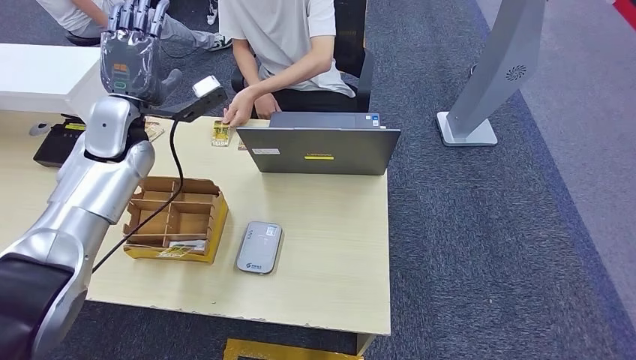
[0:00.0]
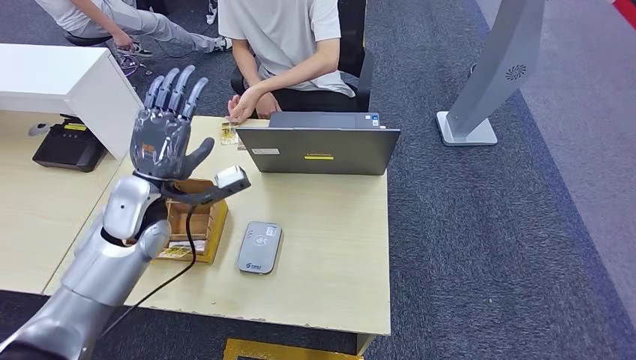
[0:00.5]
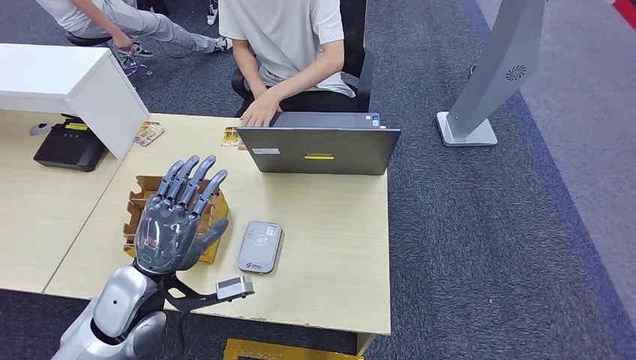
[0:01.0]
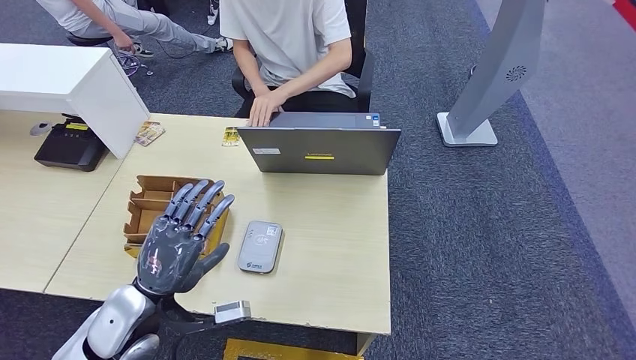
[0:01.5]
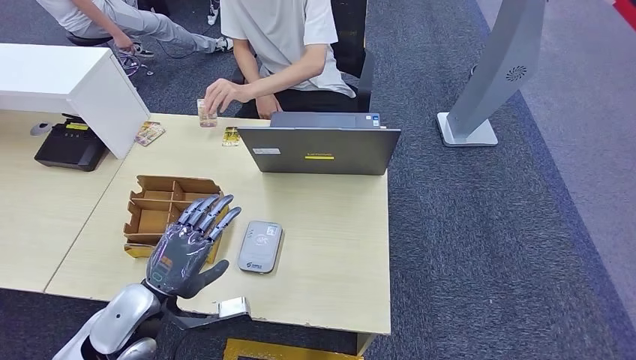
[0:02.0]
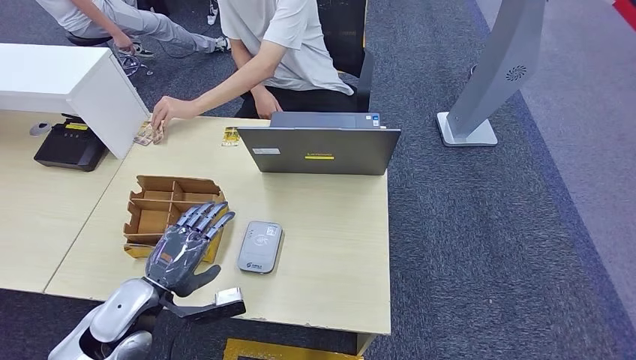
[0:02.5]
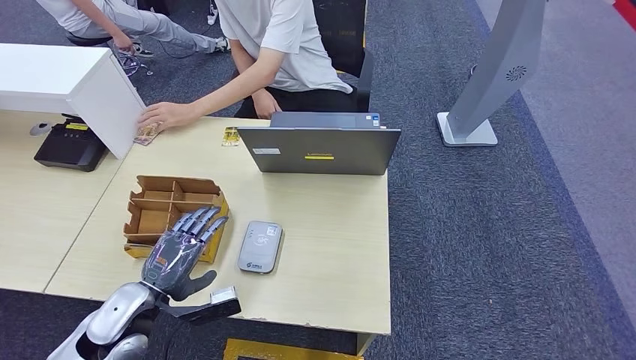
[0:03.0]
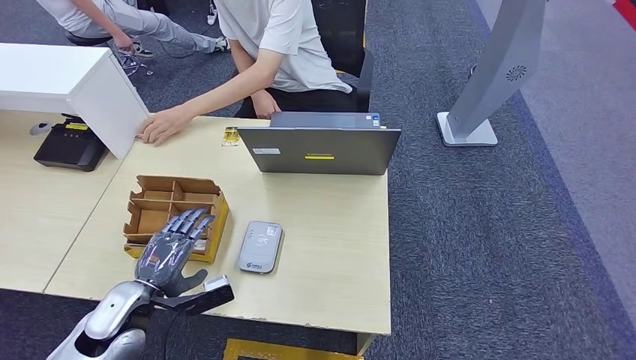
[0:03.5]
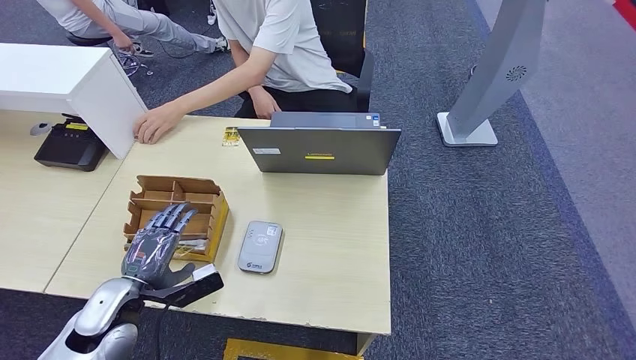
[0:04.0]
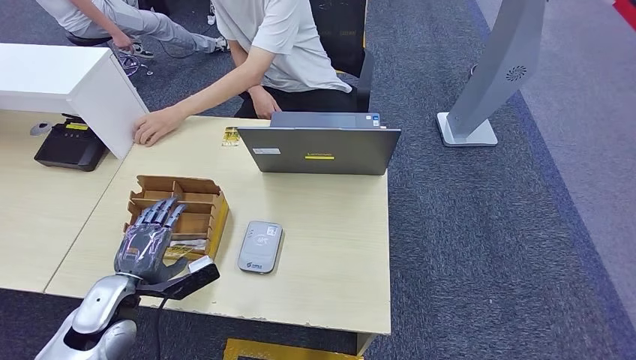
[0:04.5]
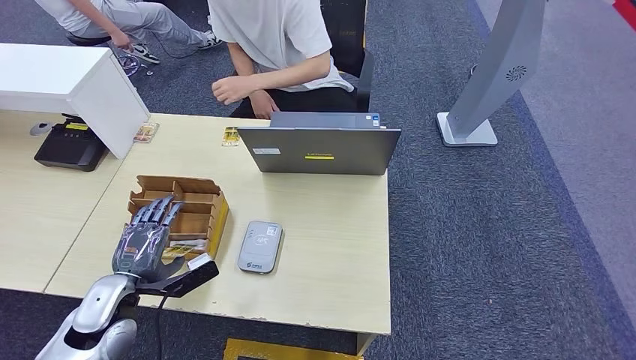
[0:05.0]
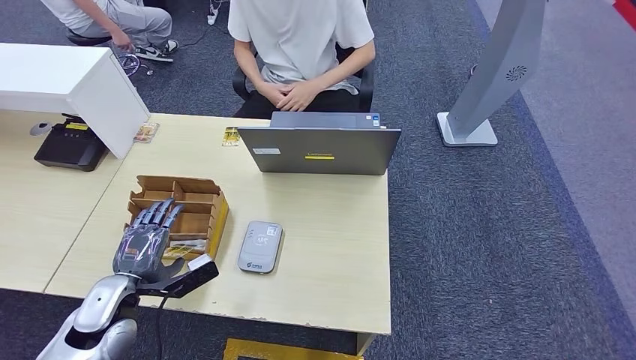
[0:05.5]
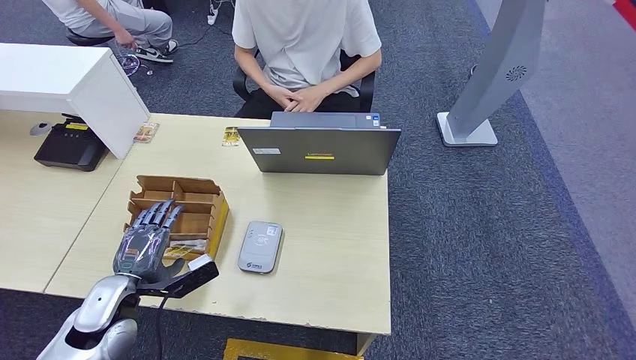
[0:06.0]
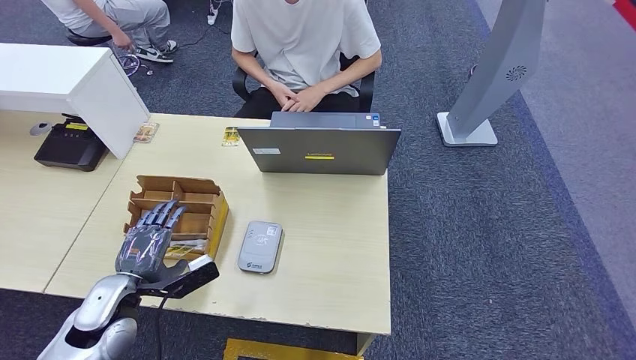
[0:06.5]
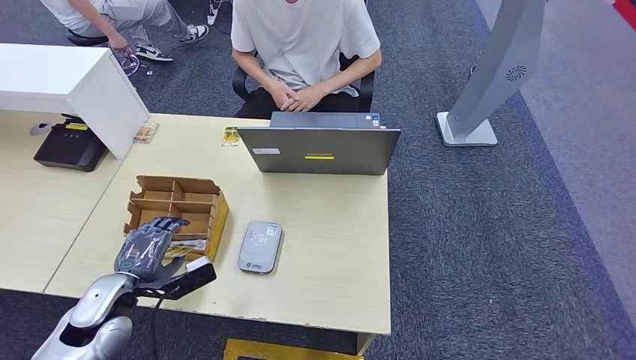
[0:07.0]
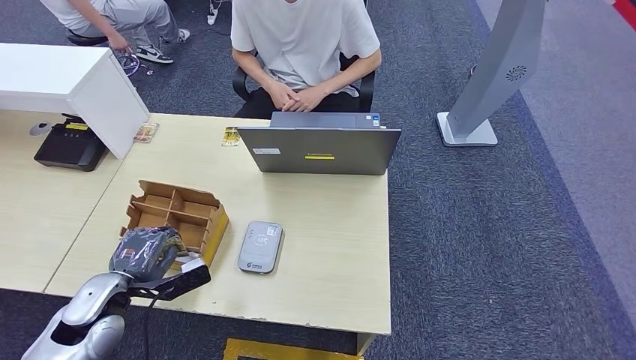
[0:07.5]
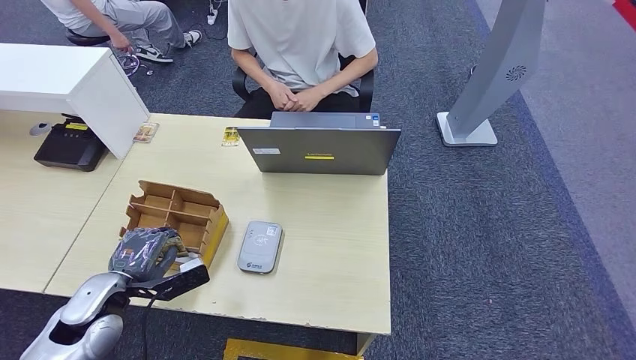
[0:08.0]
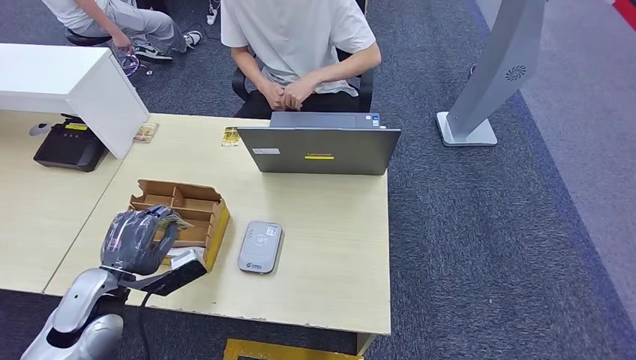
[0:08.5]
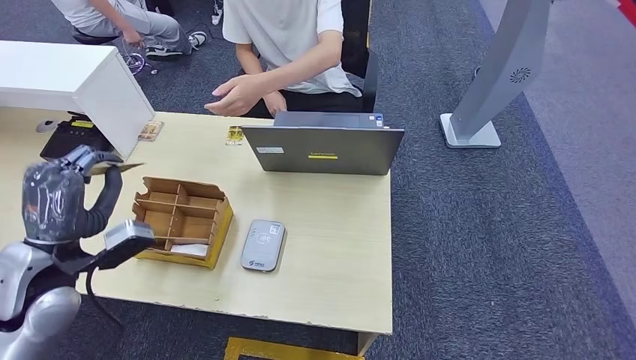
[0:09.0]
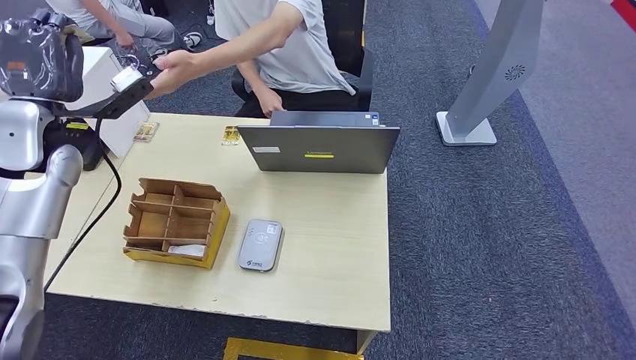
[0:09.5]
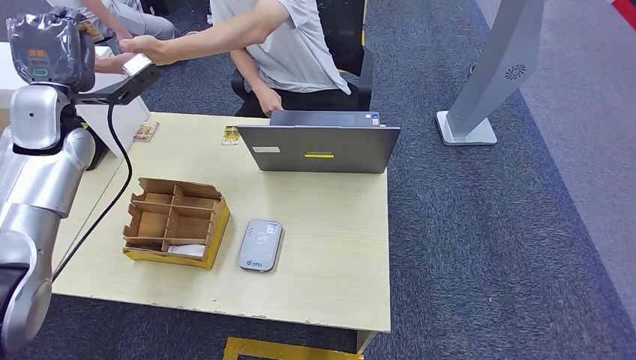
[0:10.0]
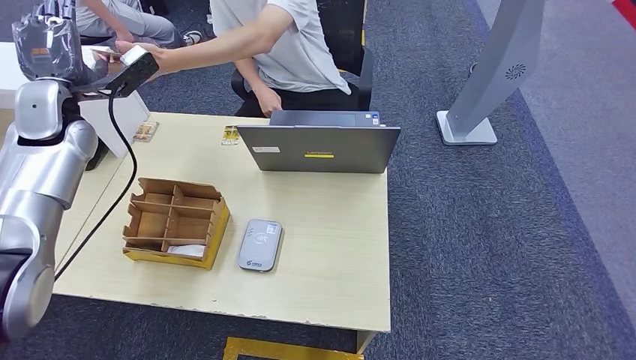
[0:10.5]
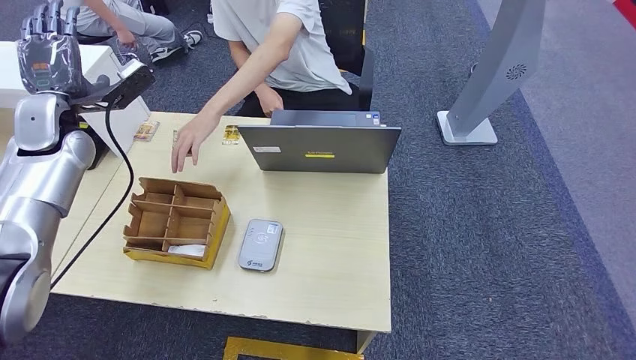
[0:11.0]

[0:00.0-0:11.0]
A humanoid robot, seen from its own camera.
Step, 0:07.0 to 0:08.5: Pick up the room key from the key card box.
Step, 0:09.0 to 0:11.0: Hand the room key to the person.
0:00.0 to 0:02.0: The left hand shifts approximately 30 cm backward and downward.
0:02.0 to 0:03.5: The left hand ends up roughly 5 cm from where it was.
0:03.5 to 0:07.5: The hands make only small movements.
